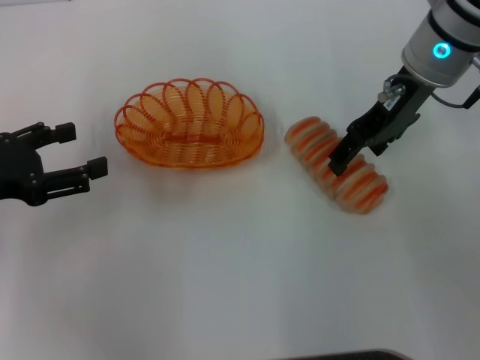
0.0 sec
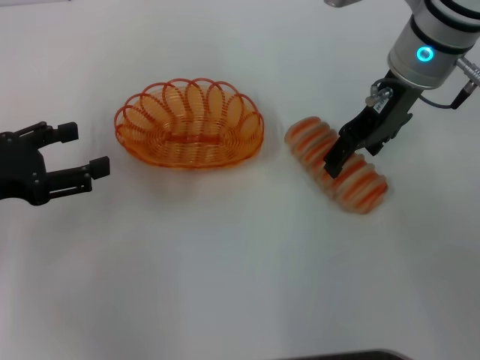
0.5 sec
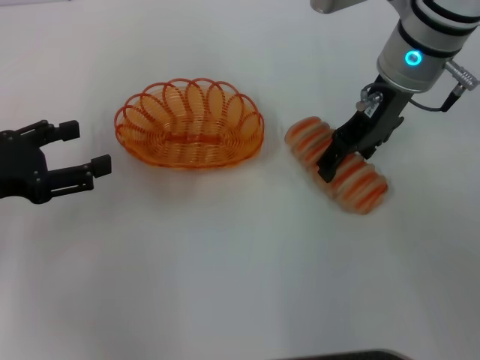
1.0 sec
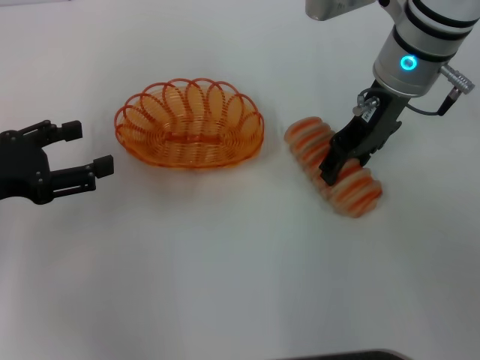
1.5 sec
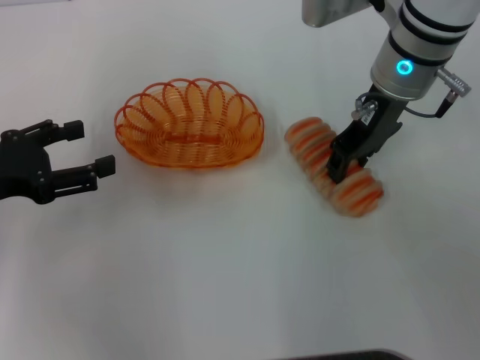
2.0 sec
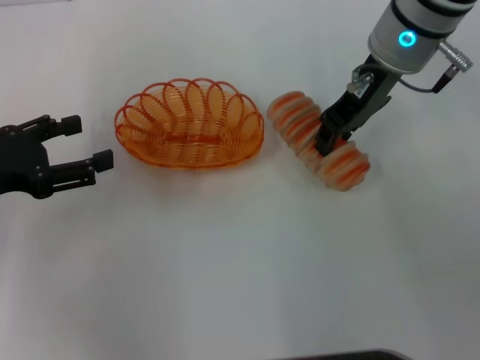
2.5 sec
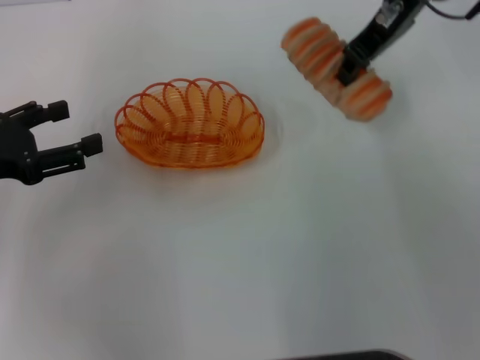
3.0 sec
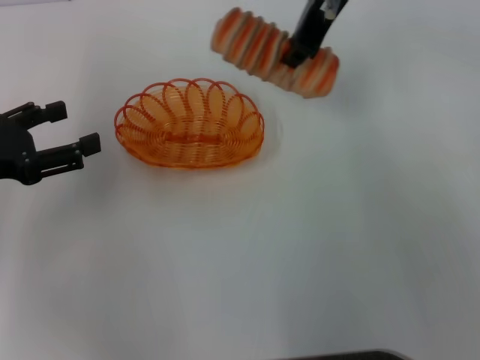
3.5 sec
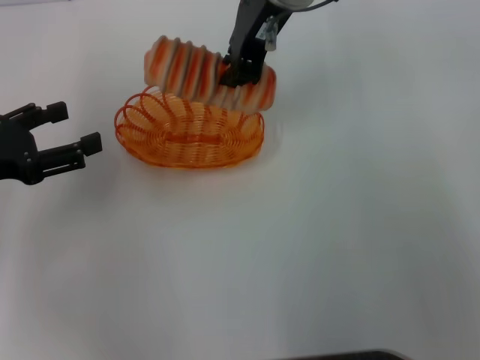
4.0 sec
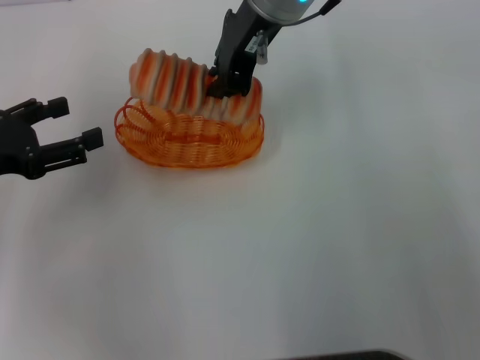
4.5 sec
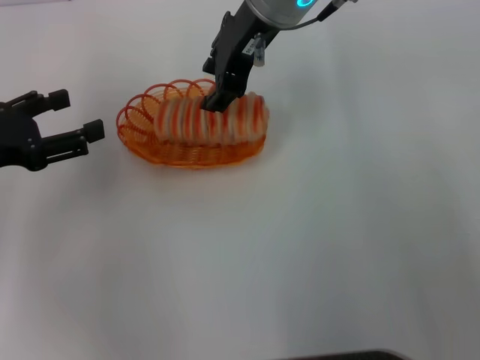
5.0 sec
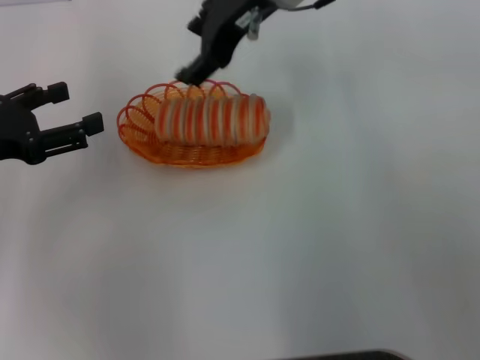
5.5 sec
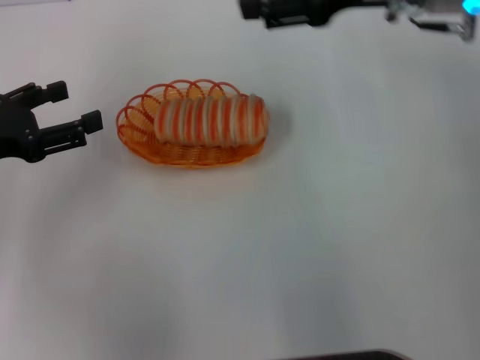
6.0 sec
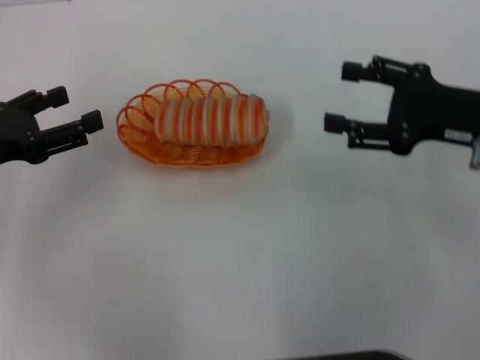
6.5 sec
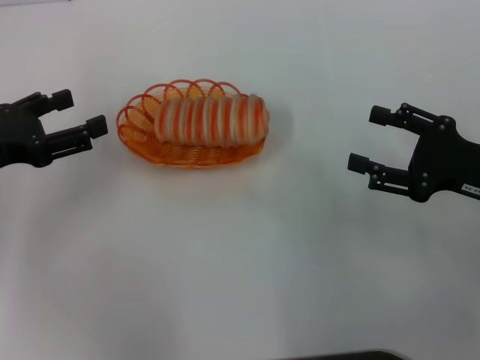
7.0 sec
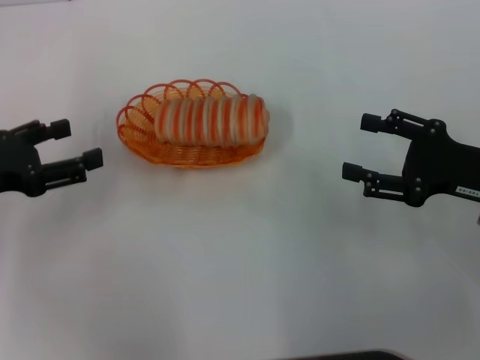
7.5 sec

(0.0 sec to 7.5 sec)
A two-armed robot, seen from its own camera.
Step, 0.0 sec - 2.5 sec: Pick up the long bread with the right gripper.
Step, 3.0 sec - 5.5 sec: Place the long bread into the basket with the right gripper.
0.0 sec - 2.0 sec: The right gripper closes its fingers.
2.0 sec - 4.0 sec: The right gripper goes about 15 cm to the left and upward, and closes up.
4.0 sec - 5.5 sec: The right gripper opens.
5.5 sec - 7.5 sec: The right gripper is displaced to the right, backward and downward by approximately 35 cm.
